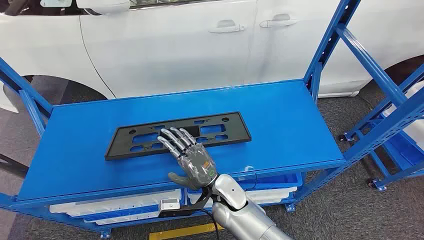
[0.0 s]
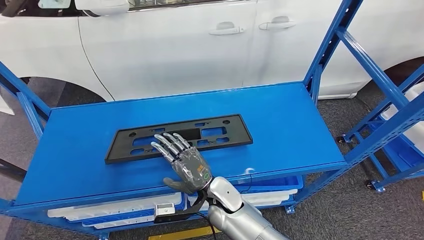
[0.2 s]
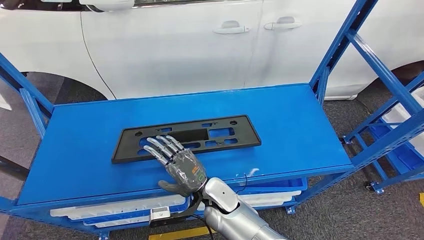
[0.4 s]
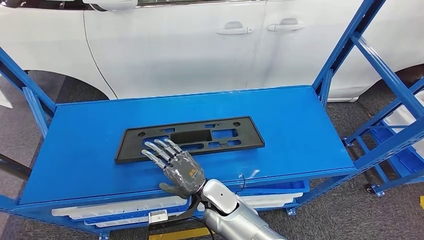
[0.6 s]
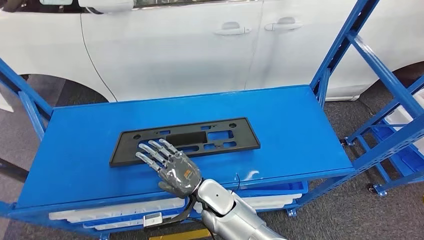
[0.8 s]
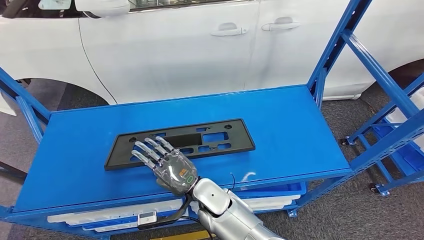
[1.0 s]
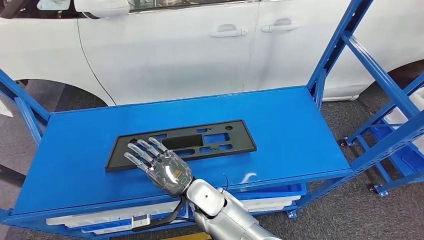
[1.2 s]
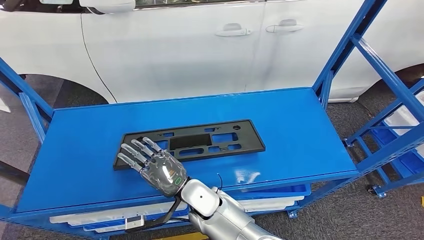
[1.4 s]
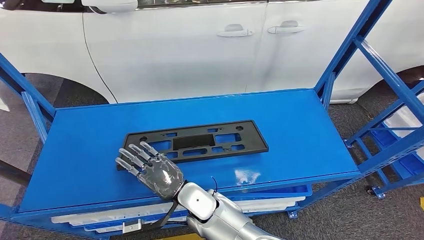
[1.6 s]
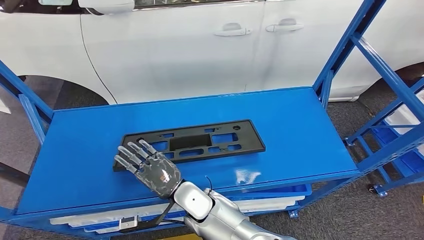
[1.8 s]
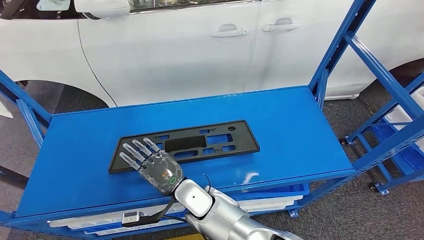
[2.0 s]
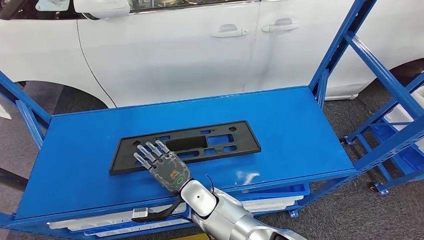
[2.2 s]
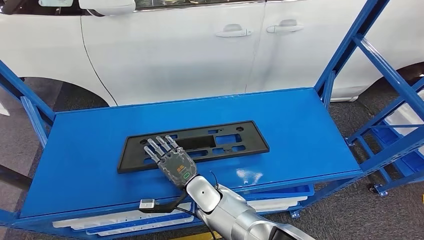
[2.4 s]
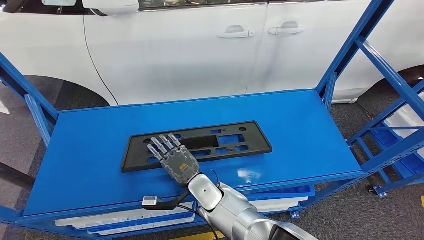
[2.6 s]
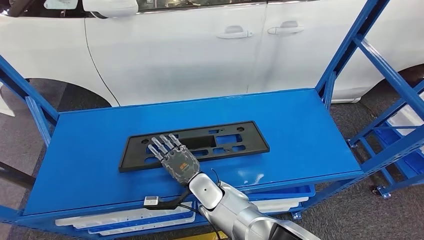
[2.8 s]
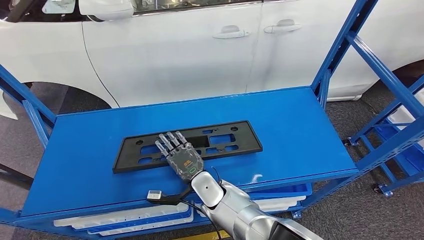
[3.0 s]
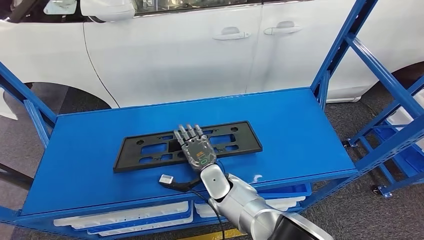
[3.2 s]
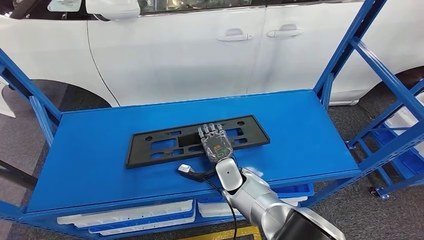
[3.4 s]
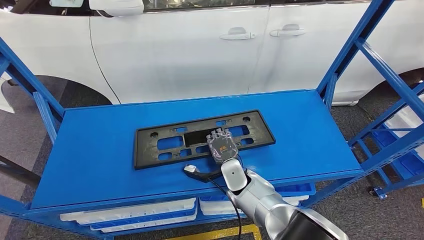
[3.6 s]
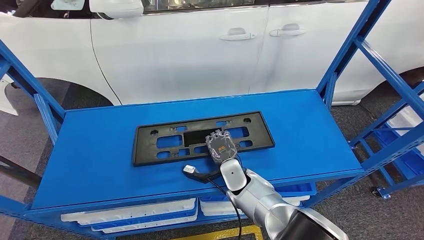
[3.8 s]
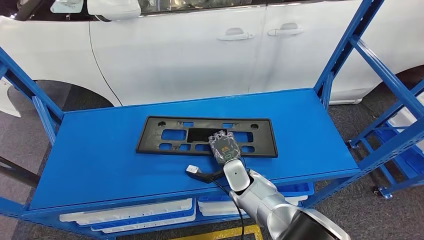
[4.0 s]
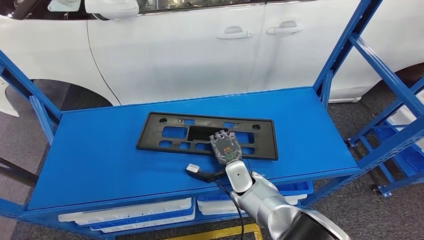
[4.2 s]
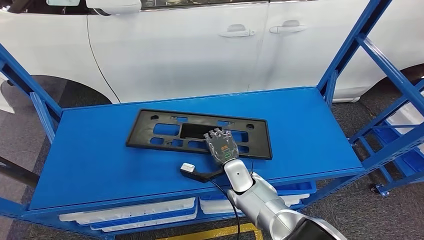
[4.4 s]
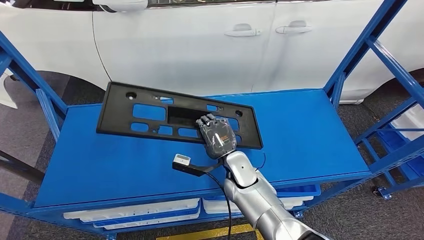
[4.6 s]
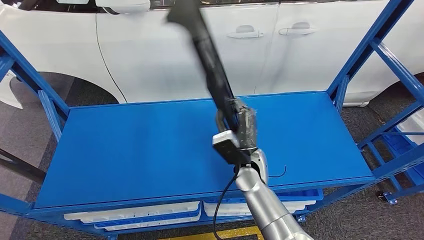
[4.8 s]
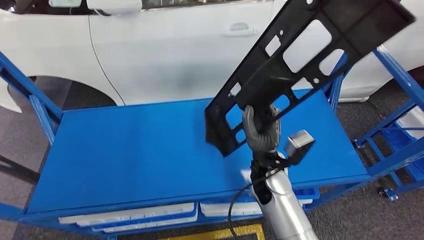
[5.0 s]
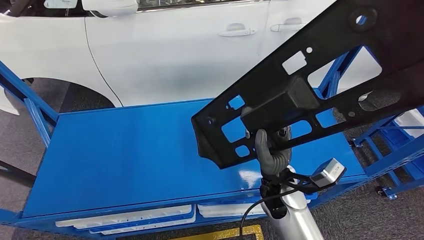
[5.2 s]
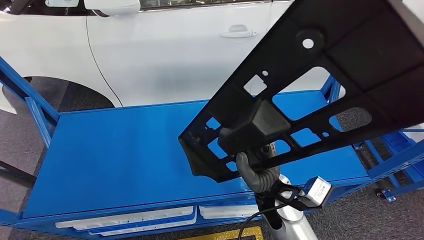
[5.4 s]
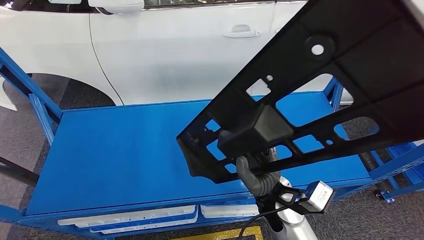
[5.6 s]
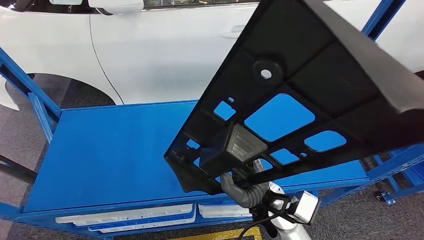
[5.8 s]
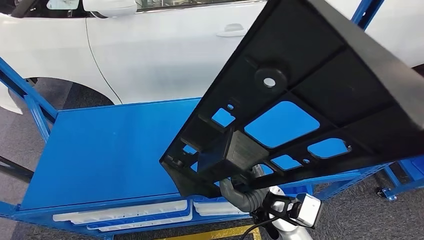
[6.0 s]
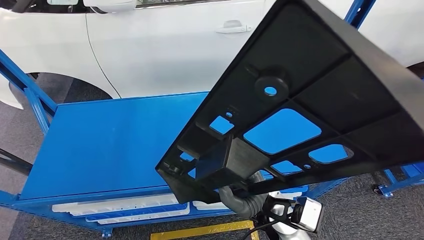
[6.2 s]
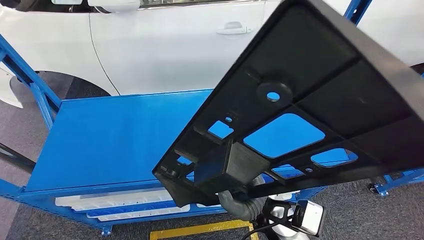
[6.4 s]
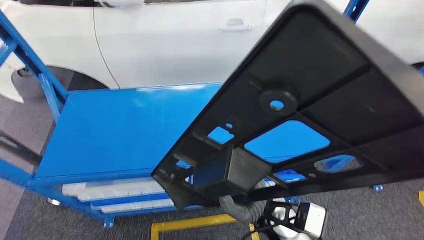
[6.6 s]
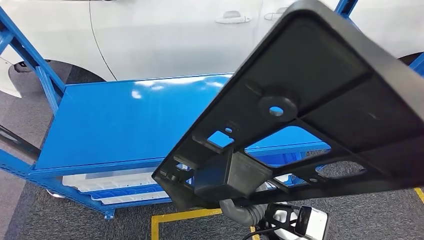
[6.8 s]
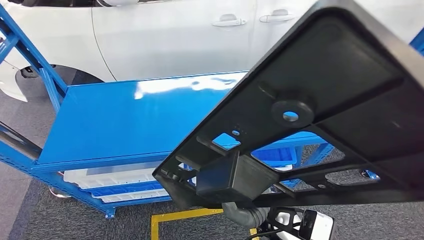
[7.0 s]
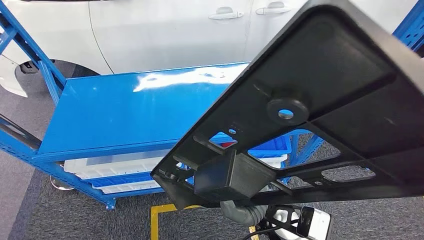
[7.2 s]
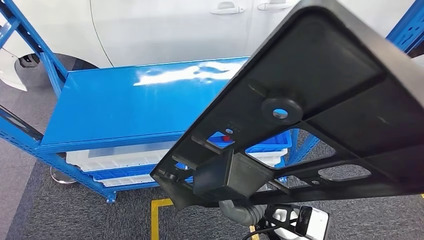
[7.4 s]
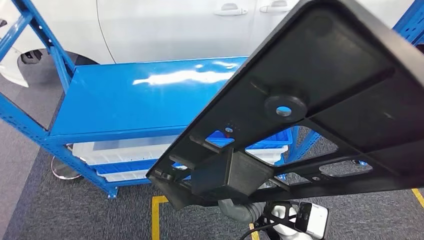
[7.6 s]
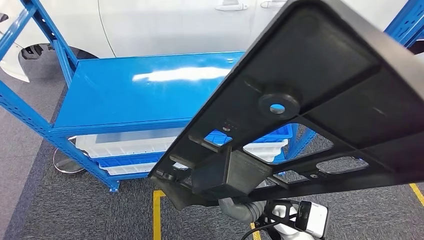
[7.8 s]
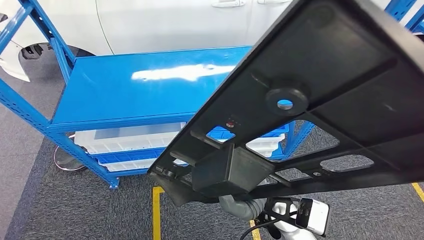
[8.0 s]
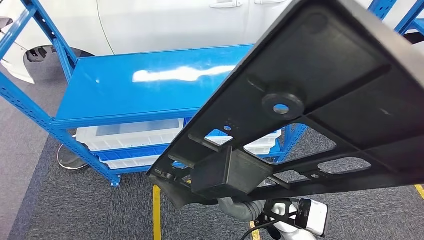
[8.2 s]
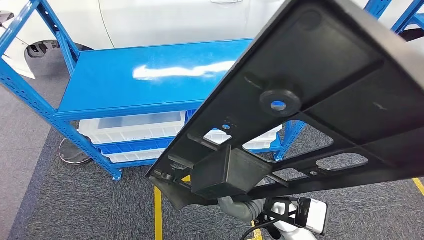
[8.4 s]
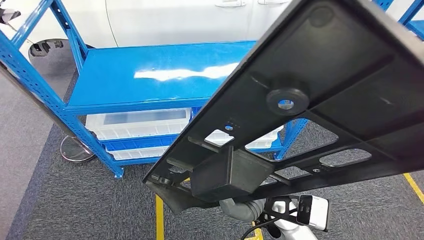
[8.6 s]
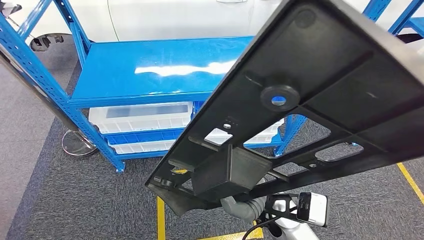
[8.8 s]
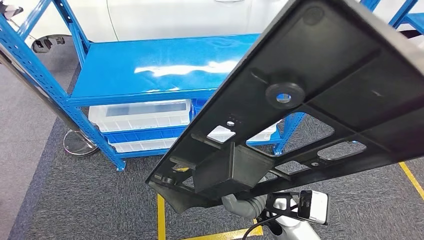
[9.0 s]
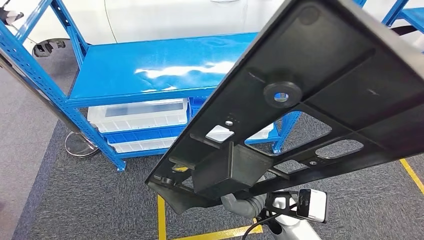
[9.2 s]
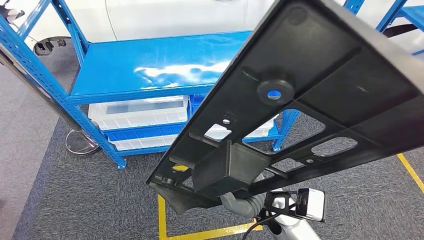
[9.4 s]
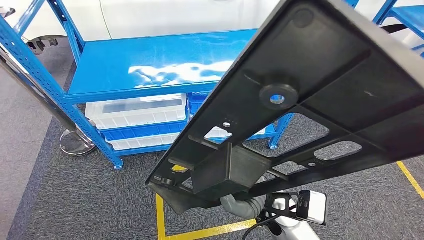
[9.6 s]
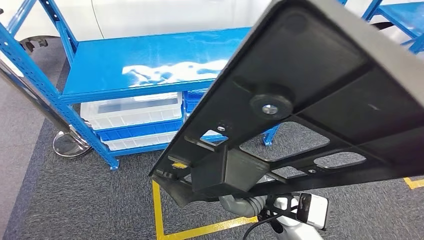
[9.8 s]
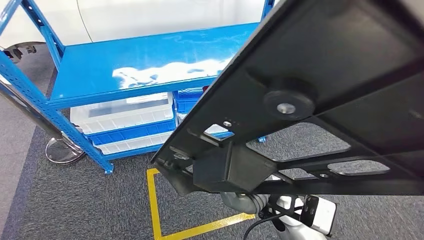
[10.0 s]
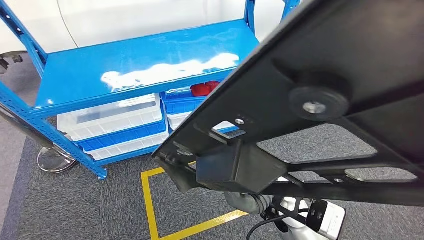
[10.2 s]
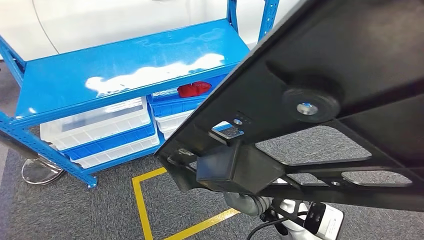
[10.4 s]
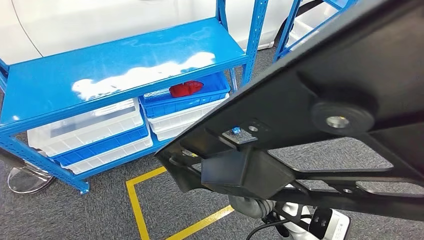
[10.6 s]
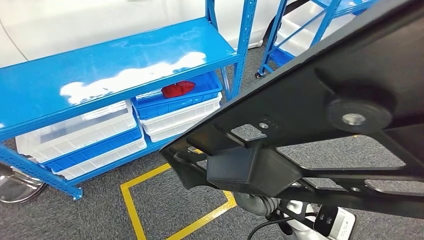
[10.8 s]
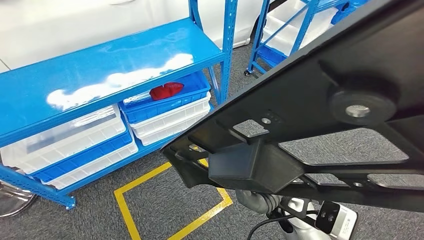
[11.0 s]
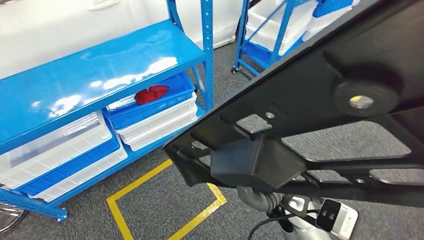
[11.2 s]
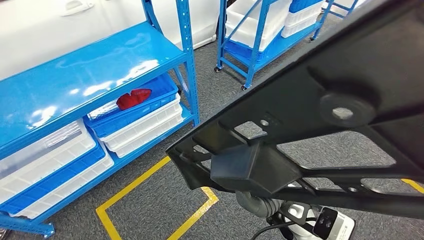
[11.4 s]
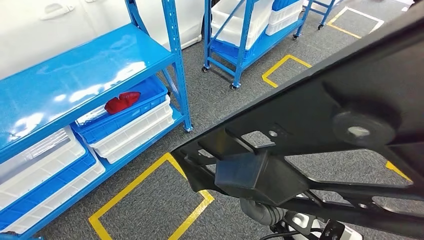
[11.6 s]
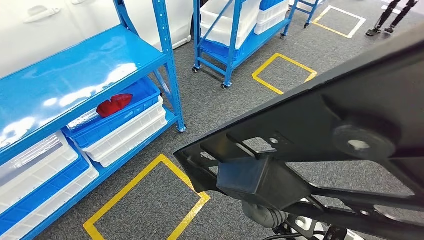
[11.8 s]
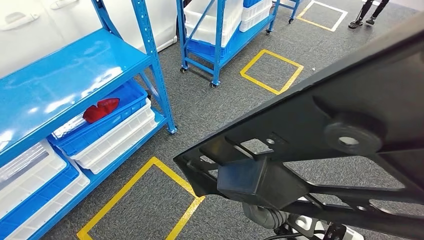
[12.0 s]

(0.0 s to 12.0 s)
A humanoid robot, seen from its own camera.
Step, 0.0 s - 5.6 s: Pick up the small component from the shelf.

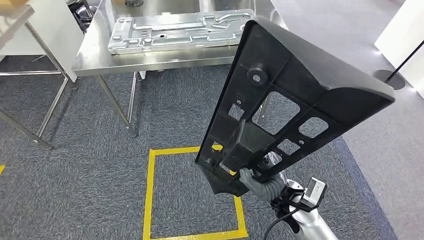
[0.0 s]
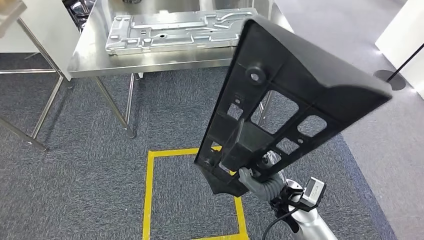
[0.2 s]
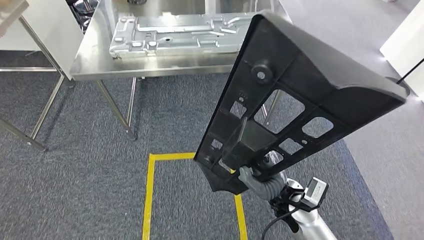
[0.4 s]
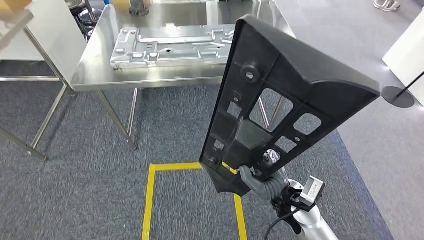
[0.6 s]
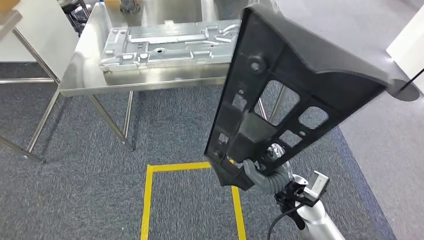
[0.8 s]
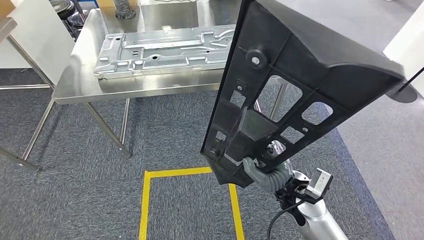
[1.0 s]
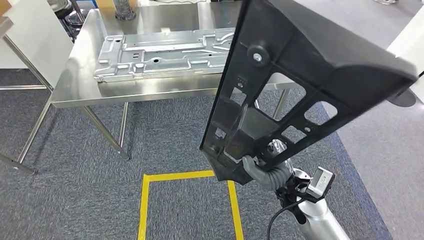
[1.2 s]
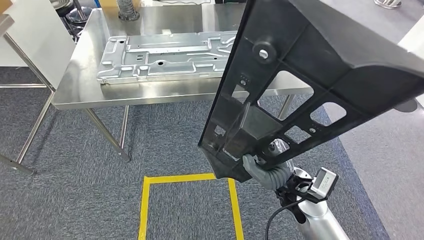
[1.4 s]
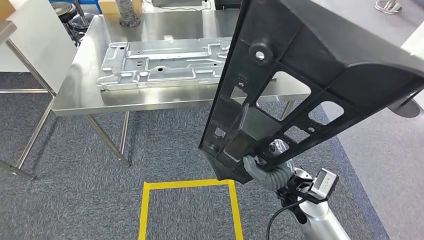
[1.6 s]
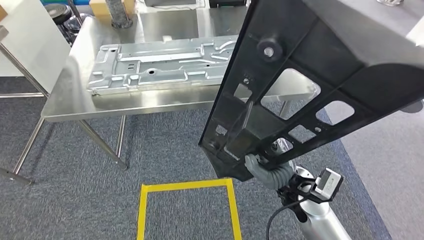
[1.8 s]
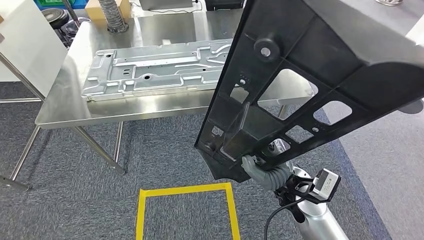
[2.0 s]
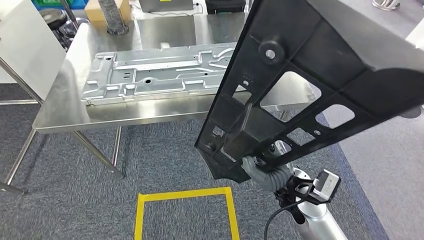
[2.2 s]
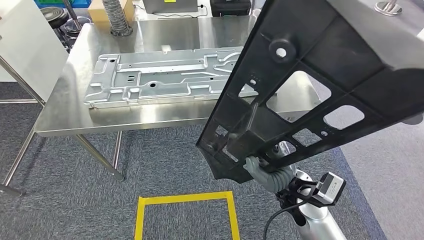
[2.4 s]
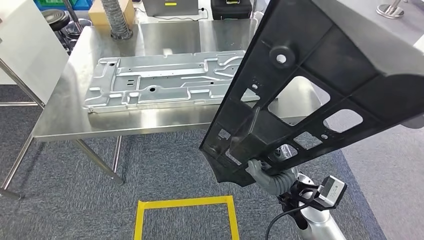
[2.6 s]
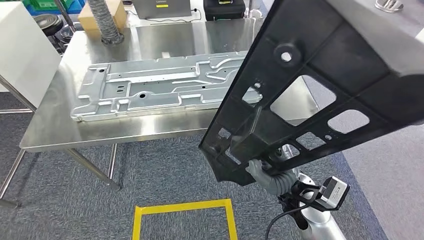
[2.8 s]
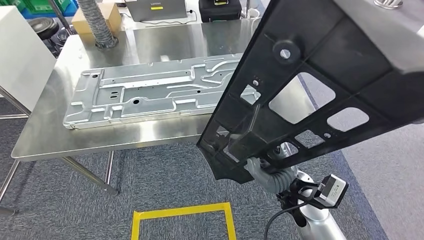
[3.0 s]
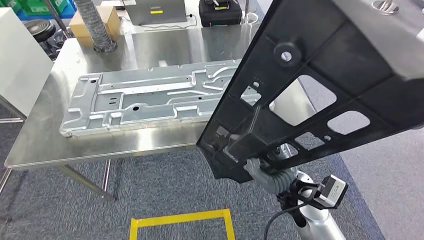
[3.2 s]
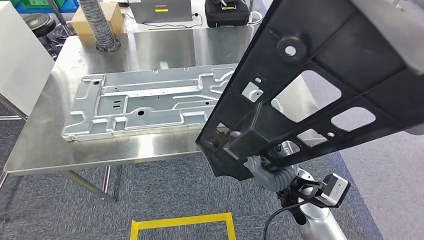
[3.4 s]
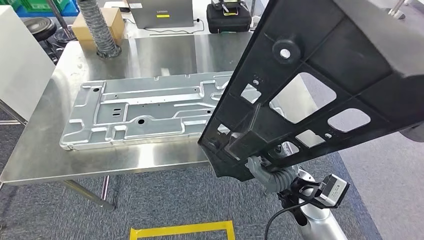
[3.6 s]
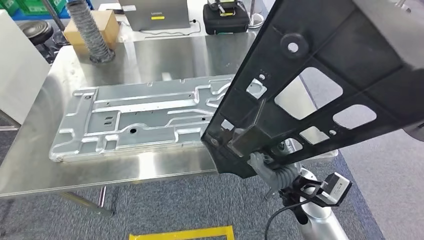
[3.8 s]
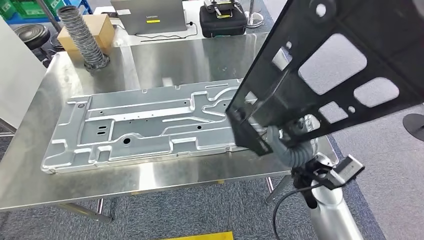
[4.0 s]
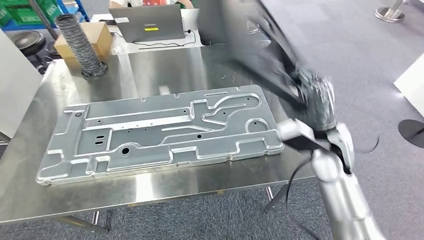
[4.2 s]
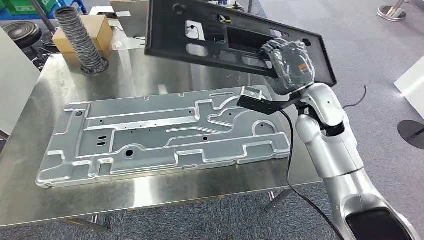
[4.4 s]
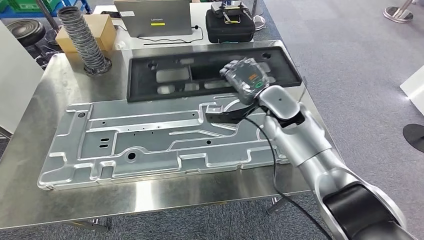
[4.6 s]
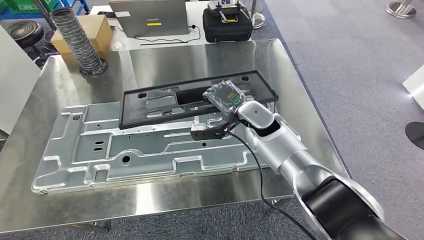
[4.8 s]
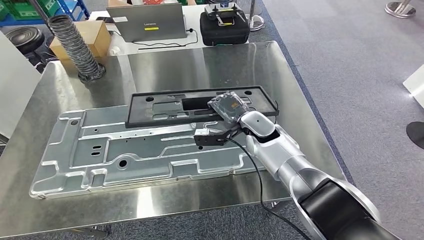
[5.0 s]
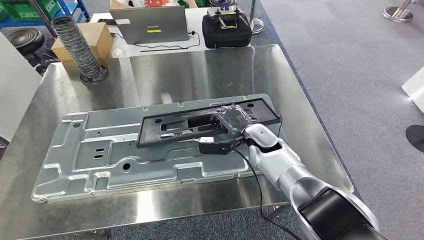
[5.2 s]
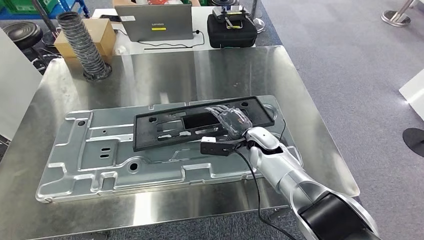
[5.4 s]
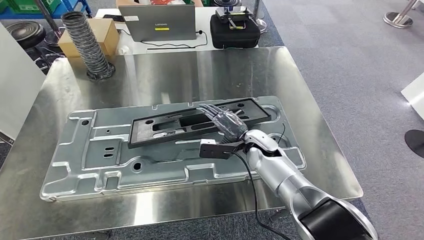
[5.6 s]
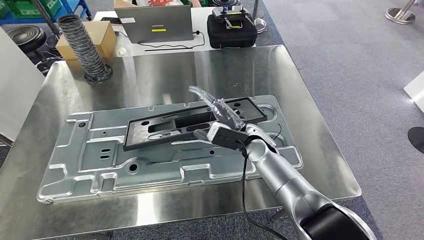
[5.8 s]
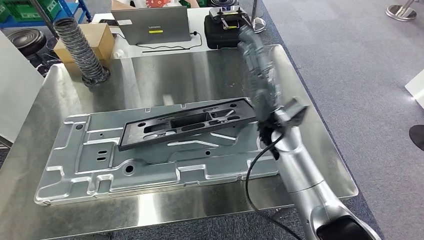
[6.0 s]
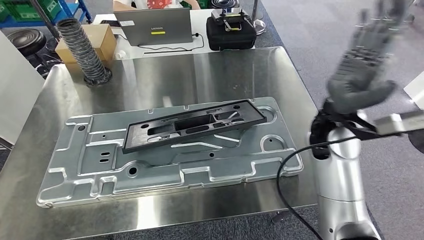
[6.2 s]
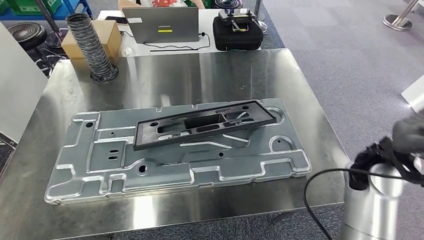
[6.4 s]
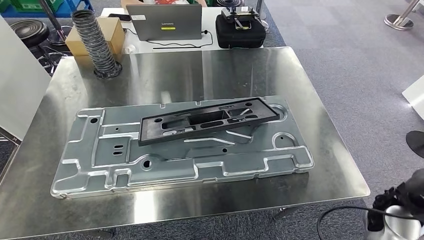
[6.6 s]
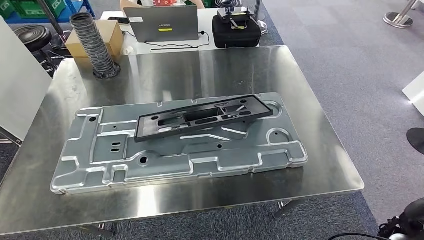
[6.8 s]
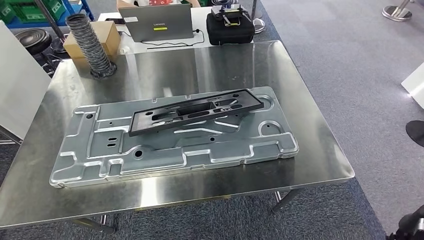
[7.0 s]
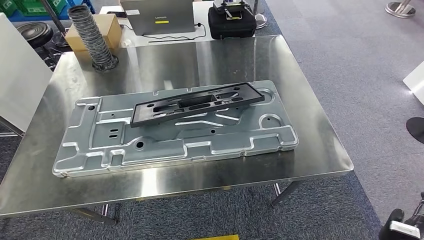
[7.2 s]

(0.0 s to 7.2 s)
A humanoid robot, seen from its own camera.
Step, 0.0 s - 3.2 s: Move the small component to the workbench.
